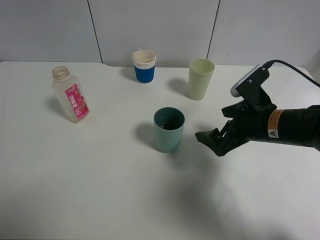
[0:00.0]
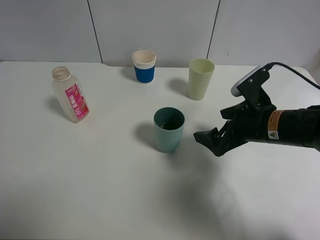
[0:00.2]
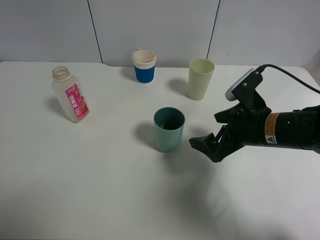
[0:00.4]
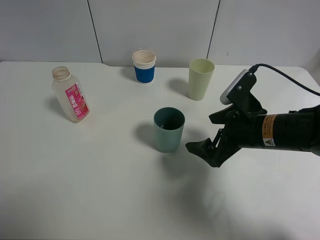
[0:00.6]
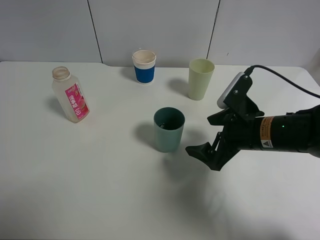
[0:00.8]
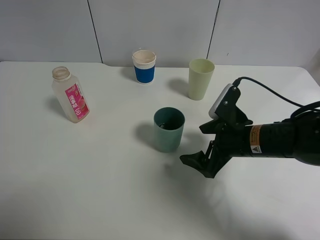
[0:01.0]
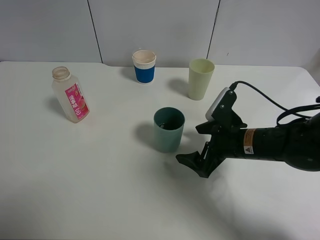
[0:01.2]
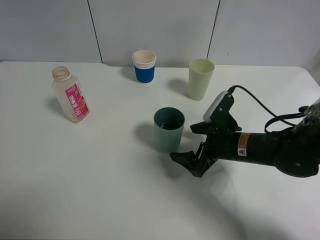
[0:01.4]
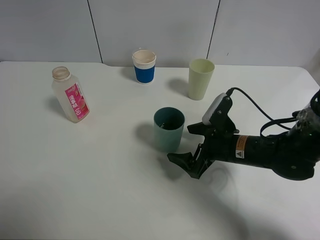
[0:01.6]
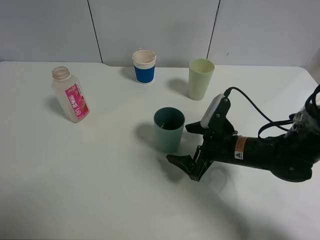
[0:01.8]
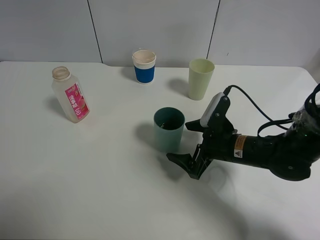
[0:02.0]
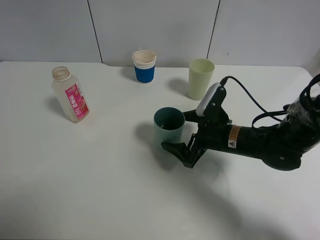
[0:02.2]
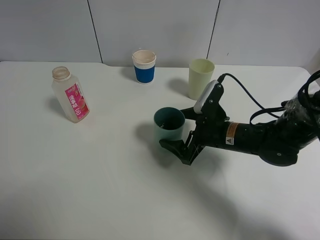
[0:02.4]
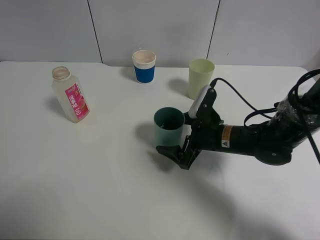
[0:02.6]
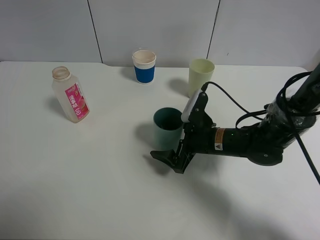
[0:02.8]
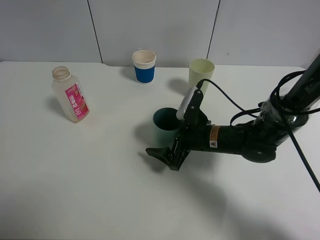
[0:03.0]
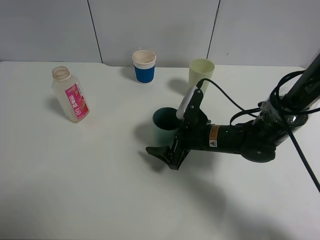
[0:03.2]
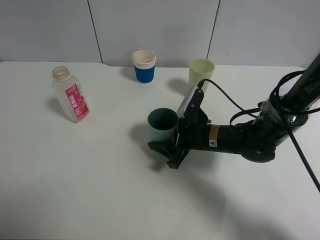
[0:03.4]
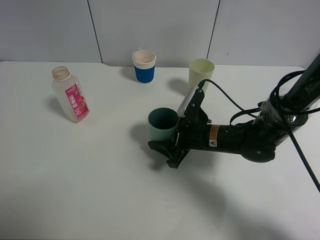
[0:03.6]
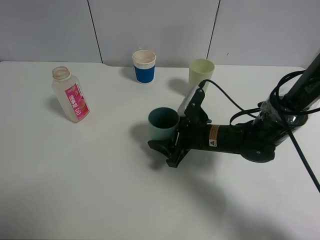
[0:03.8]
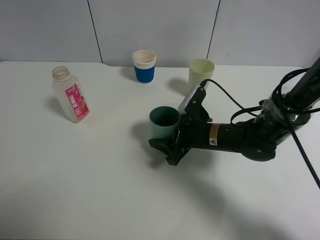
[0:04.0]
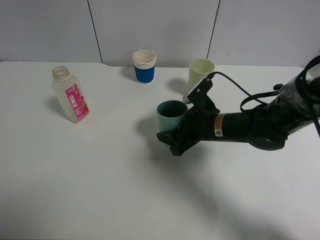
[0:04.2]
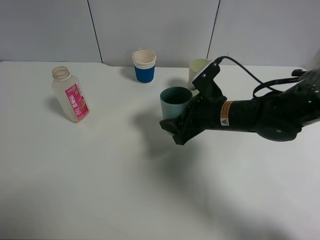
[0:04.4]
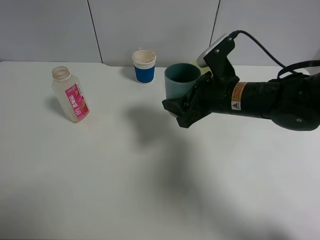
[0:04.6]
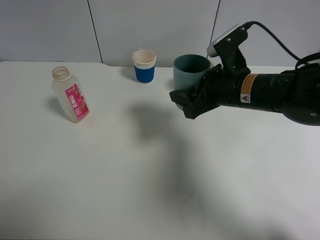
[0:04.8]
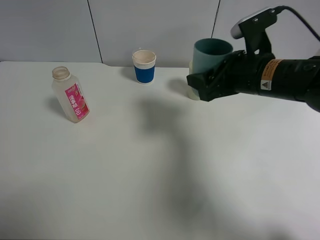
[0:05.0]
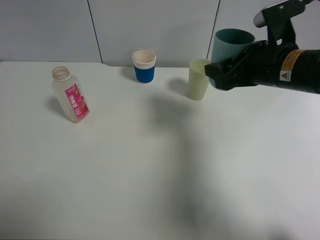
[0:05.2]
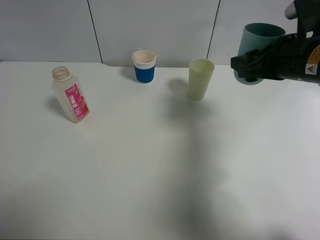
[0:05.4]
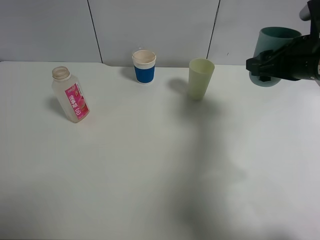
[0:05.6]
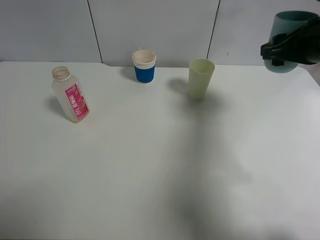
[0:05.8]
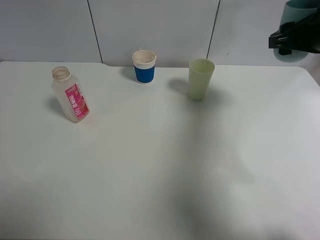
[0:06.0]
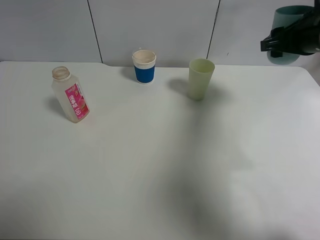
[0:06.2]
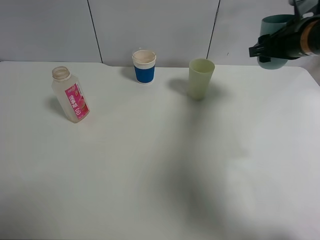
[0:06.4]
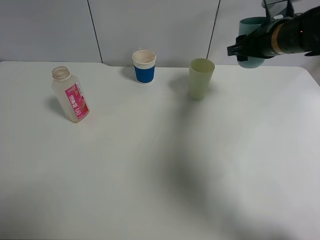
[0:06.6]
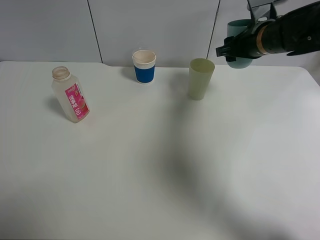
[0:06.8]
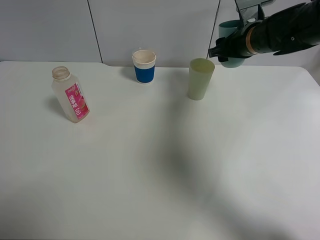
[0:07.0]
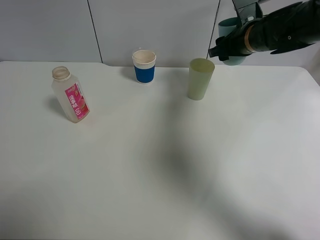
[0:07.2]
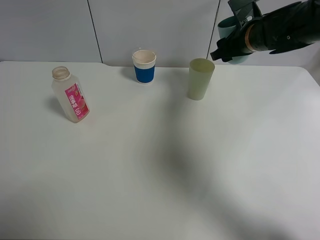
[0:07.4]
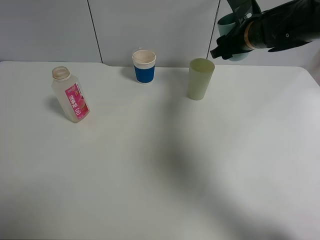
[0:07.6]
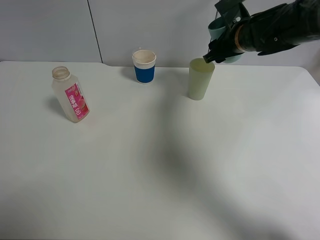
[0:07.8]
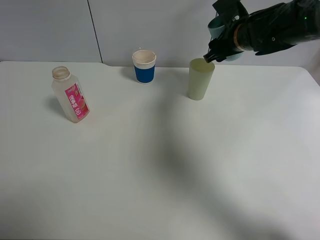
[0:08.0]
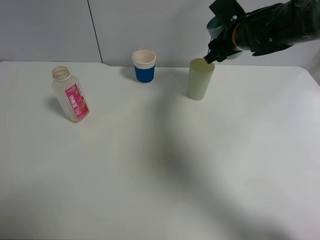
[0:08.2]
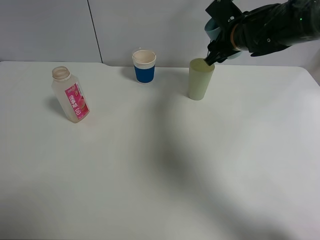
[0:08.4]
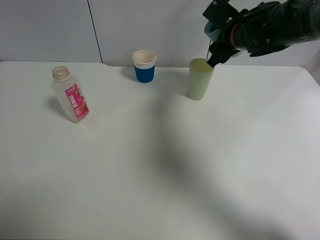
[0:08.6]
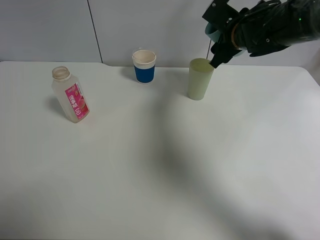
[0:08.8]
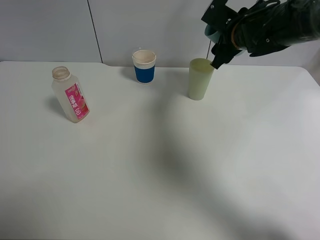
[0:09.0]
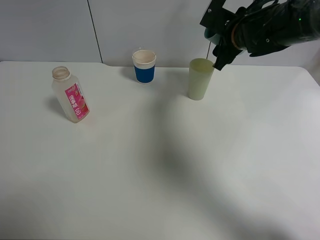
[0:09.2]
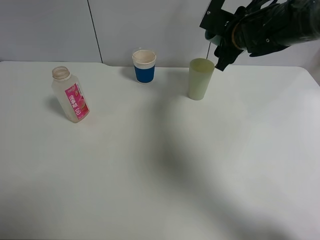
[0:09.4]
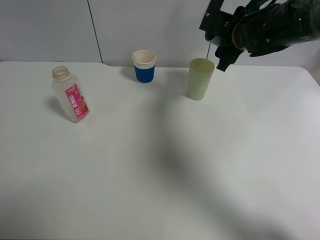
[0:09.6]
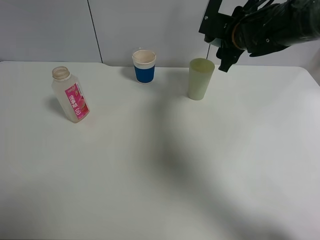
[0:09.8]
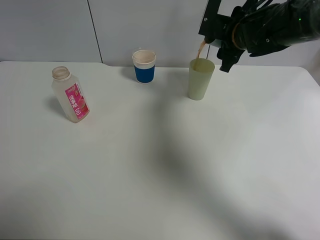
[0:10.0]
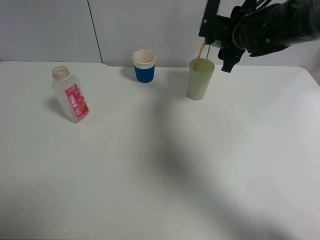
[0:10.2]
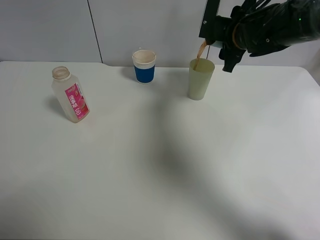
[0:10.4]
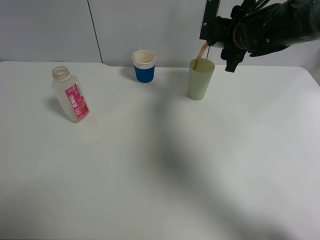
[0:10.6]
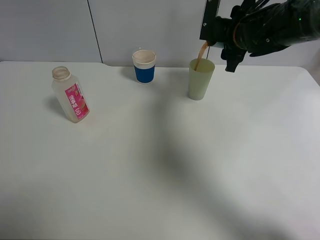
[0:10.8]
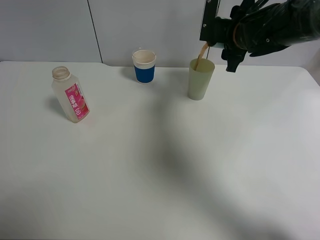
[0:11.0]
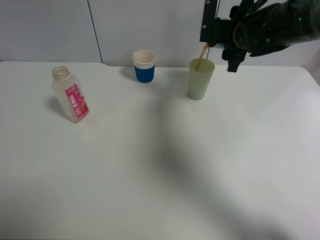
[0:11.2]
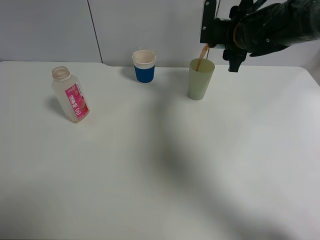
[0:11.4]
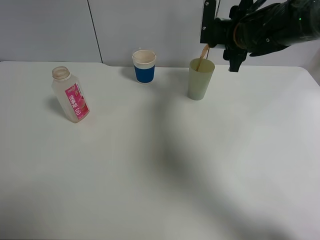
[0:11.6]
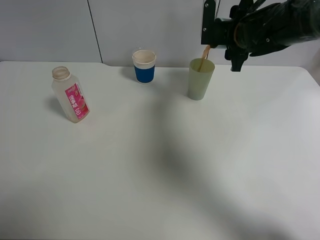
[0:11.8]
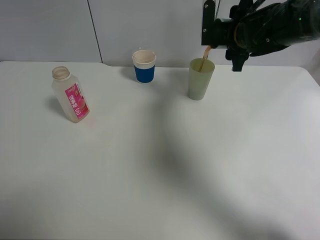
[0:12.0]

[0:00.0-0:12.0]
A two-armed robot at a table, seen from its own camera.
Task of the whole recording: use a clamp to hold the bottle of the drink, pour the beverage into a random cup, then clamp the cup containing the drink and pour the drink into another random cup.
Step, 0:00.0 to 0:04.0: Pick up the blue plastic cup bottle with right gripper.
0:00.0 to 0:01.6: The right gripper moves downward, roughly 5 cm.
0:01.6 to 0:03.0: The right gripper changes place by some 5 cm.
0:03.0 to 0:04.4: The right gripper travels upward by roughly 5 cm, and closes.
0:04.4 to 0:06.0: The right gripper goes some 20 cm to the right and upward.
0:06.0 to 0:07.6: The right gripper is displaced forward, to the left and downward by some 15 cm.
0:10.4 to 0:12.0: The grippers make only small movements.

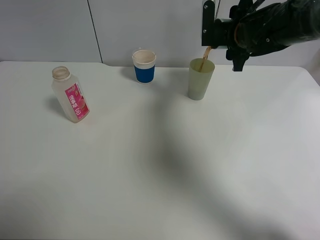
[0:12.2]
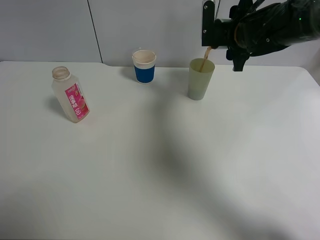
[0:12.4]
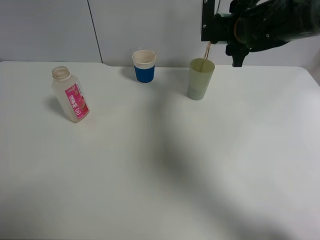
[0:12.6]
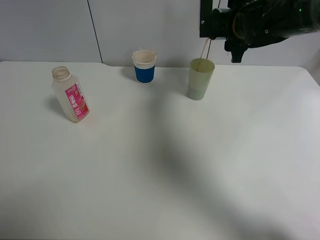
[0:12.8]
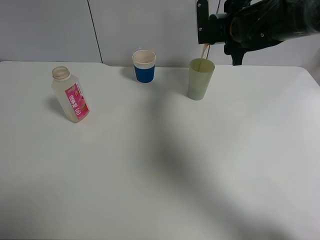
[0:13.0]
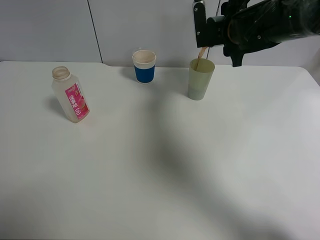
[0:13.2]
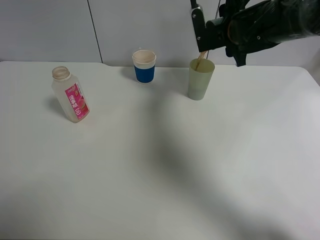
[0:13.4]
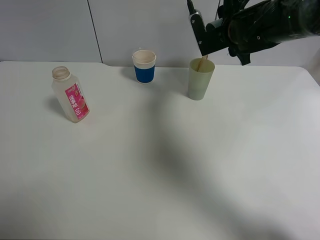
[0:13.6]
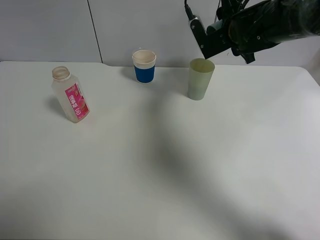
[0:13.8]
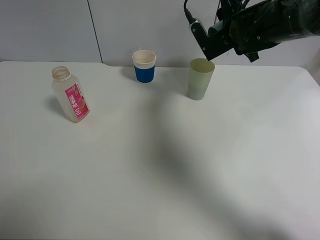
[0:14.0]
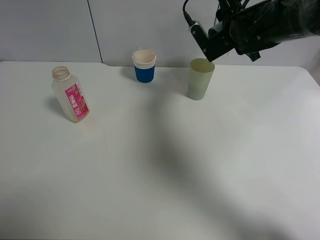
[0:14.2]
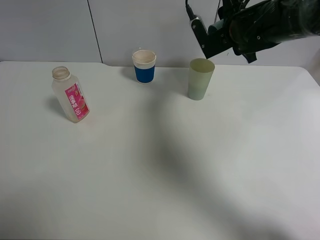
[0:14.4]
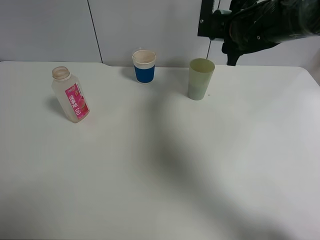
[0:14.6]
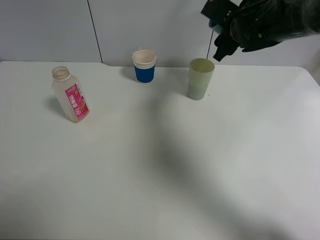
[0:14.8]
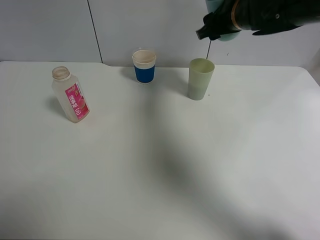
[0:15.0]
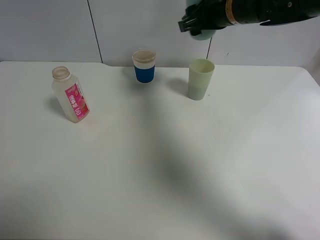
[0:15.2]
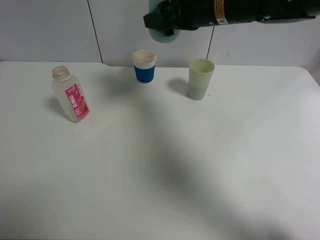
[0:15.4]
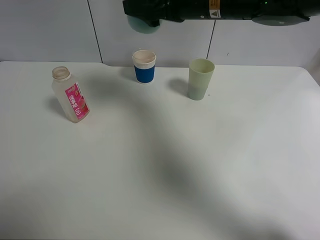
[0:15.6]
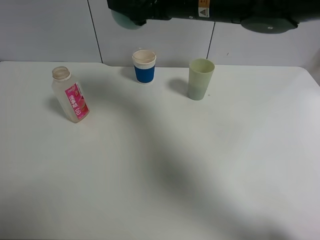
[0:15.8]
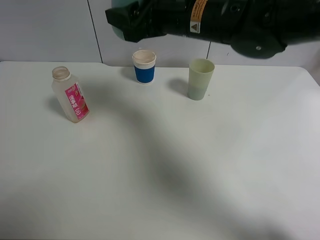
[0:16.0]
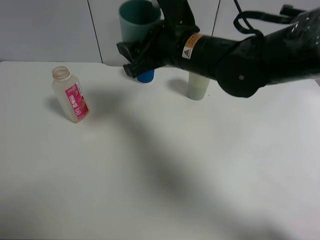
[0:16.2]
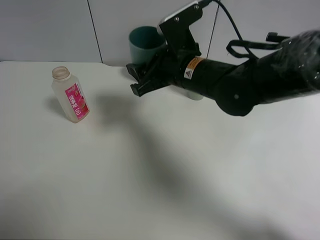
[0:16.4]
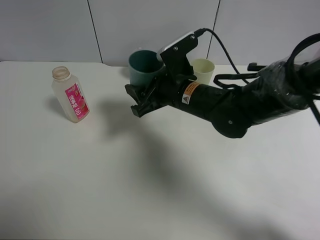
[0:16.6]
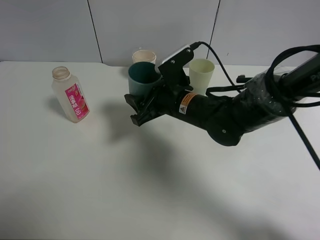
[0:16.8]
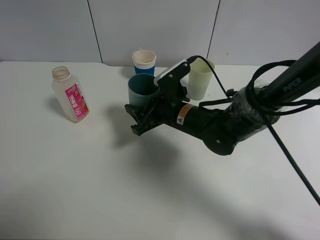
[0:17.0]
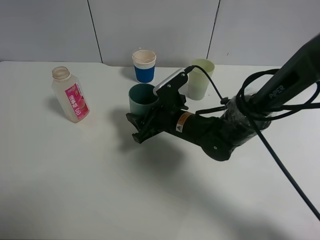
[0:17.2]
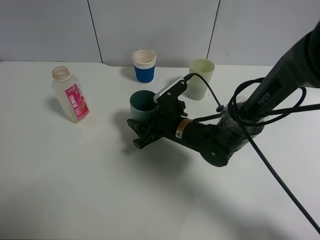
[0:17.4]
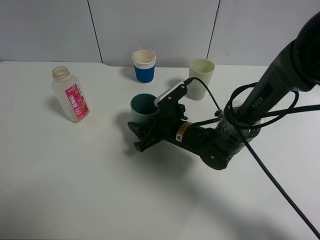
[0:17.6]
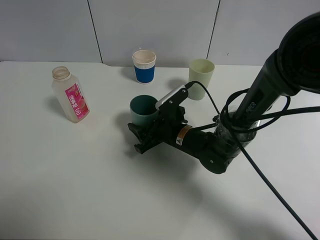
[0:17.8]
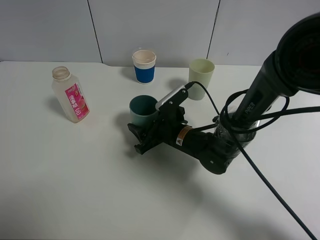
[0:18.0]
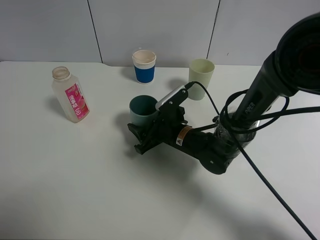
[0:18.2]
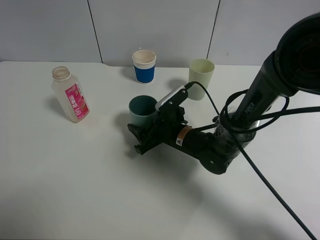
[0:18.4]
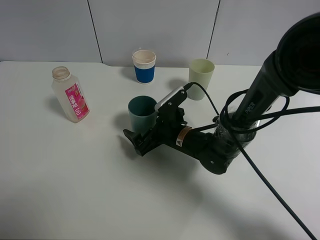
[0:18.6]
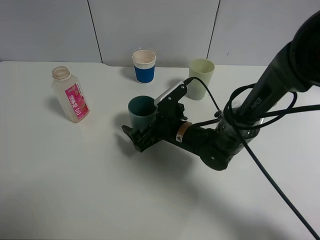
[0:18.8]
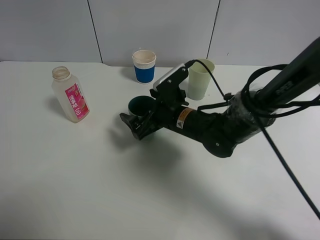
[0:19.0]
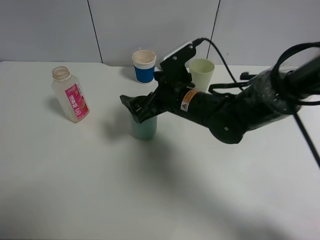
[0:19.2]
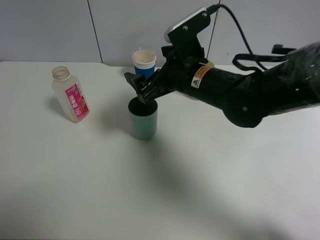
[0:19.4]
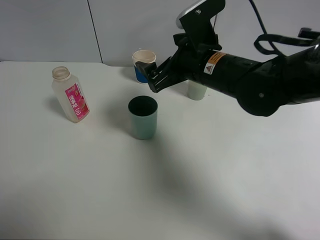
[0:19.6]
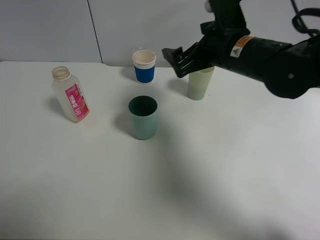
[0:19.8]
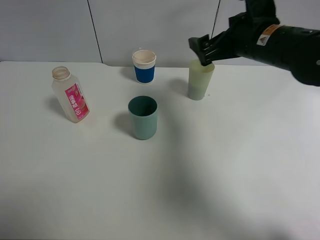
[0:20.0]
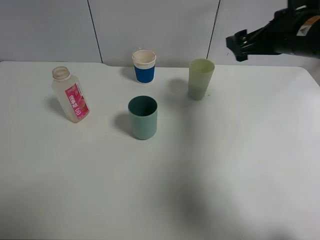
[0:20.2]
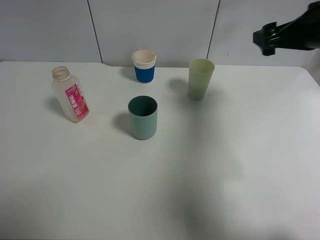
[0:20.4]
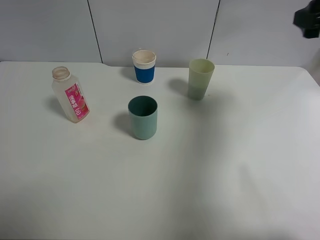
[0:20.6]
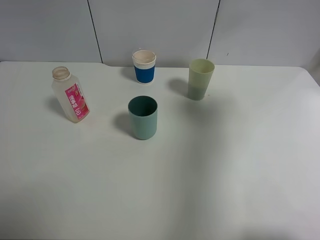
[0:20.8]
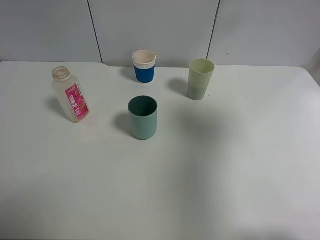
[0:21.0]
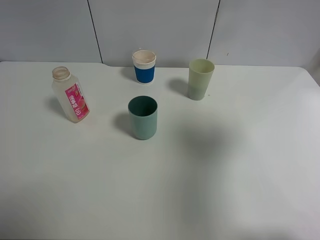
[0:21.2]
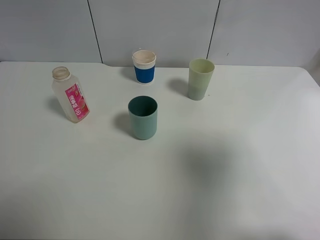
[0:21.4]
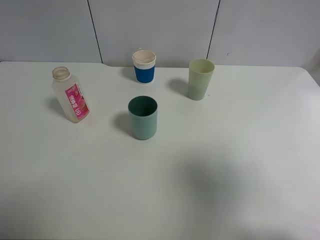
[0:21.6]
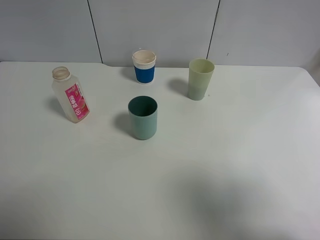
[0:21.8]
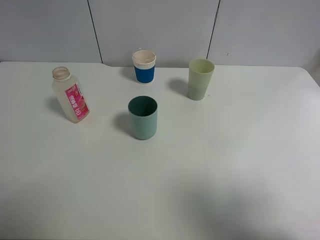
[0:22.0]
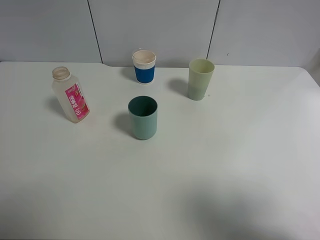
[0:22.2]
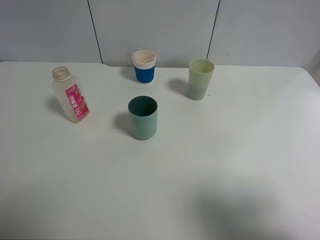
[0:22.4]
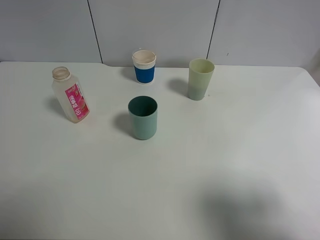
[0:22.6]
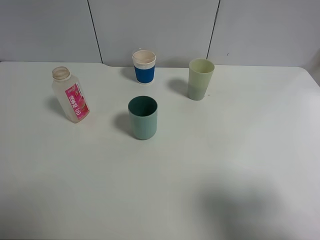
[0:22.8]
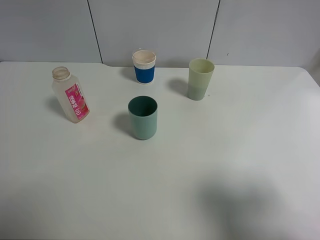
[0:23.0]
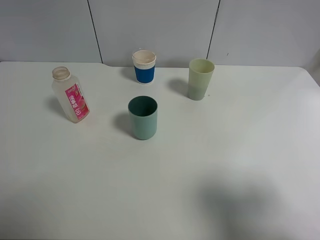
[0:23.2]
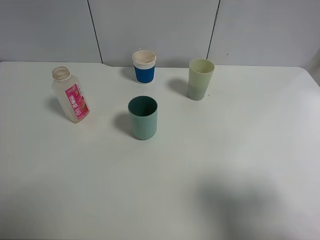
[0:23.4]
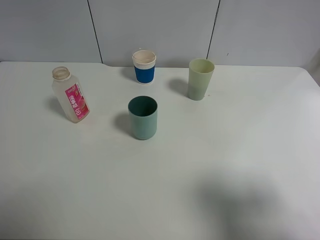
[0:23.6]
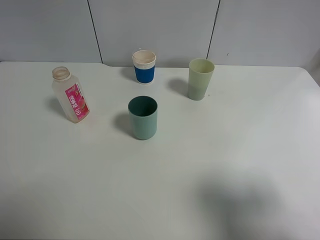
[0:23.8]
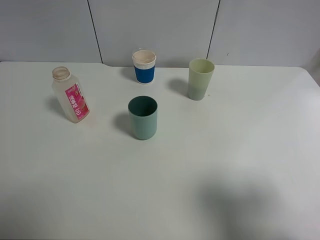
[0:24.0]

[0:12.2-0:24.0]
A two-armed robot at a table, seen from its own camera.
Task of the whole recording: use a clamp to hold the bottle of the drink, pour the beverage into a random cup, then clamp the cup containing the drink and pour the drink into another random cup.
Step, 0:12.2 to 0:14.4: Pour the drink into the green plastic cup with right gripper.
Step, 0:14.6 to 0:18.6: Place the blue plastic cup on the table with right gripper.
0:13.6 to 0:15.2: The right gripper shifts roughly 5 cm upward.
0:15.2 to 0:16.6: The right gripper travels downward, backward and to the left by some 15 cm.
0:16.6 to 0:18.2: The right gripper shifts some 10 cm downward.
0:18.2 to 0:19.6: The right gripper shifts about 15 cm upward, and opens.
0:19.6 to 0:21.0: The right gripper is displaced to the right, upward and backward by approximately 30 cm.
0:21.0 to 0:22.6: The right gripper heads backward and downward, covering some 20 cm.
